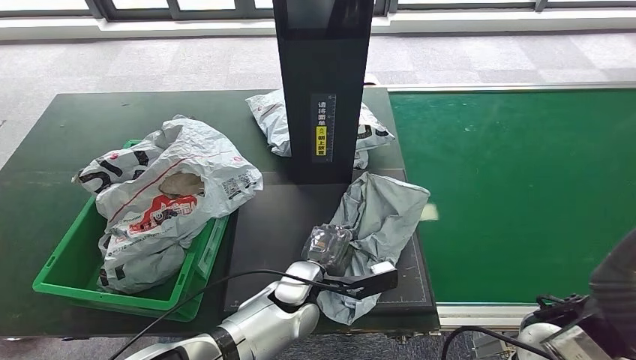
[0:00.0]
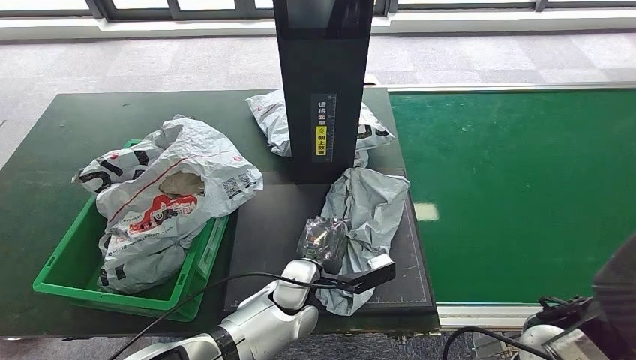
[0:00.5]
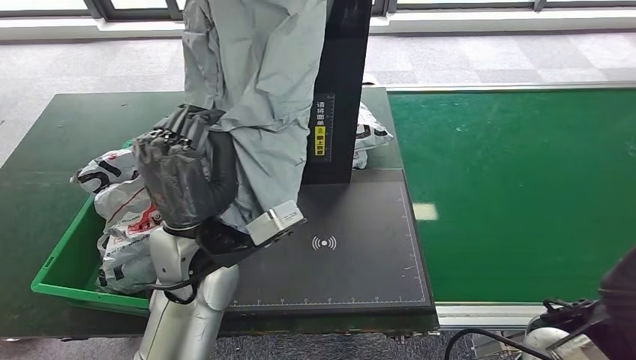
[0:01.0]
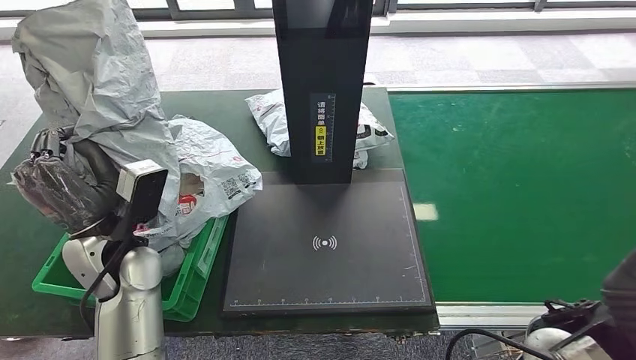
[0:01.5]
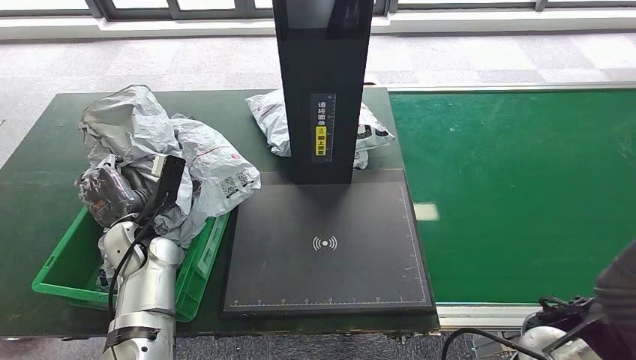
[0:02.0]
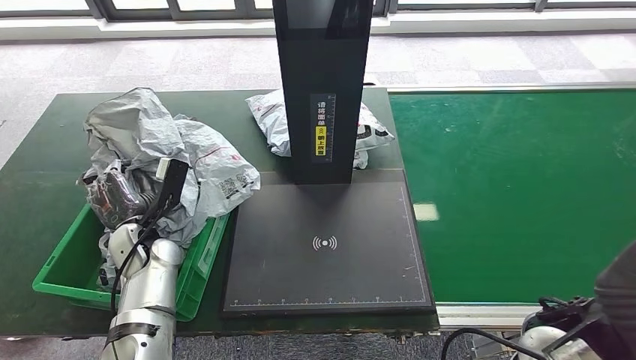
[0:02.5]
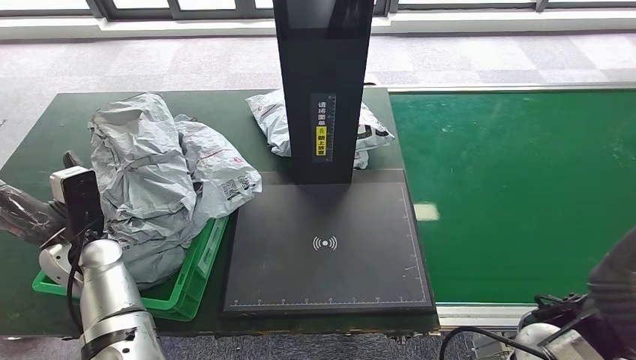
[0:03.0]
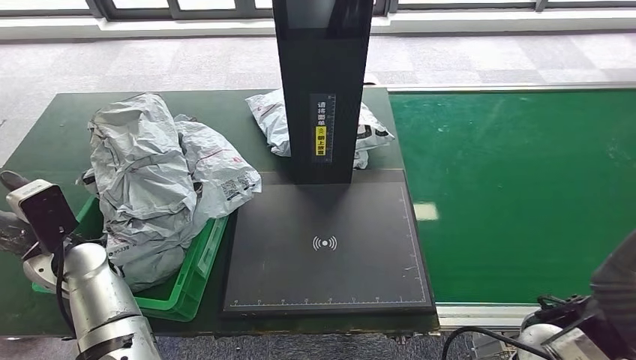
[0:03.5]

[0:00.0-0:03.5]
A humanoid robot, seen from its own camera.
Step, 0:01.5 to 0:03.5: Place the parcel into the delivery box.
0:00.0 to 0:02.0: The left hand heads to the left, covering roughly 25 cm.
0:02.0 to 0:03.5: The left hand moves to the left, roughly 5 cm.

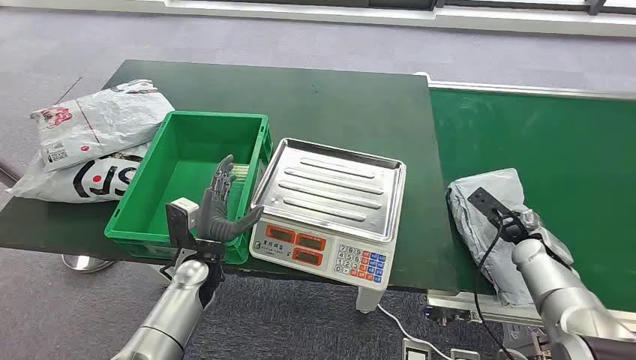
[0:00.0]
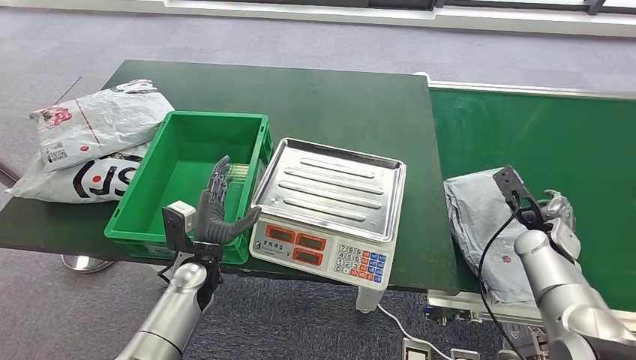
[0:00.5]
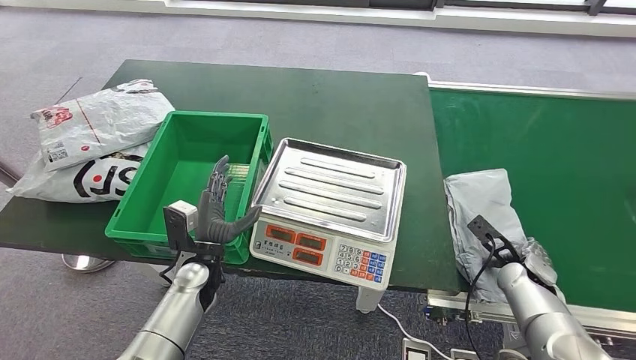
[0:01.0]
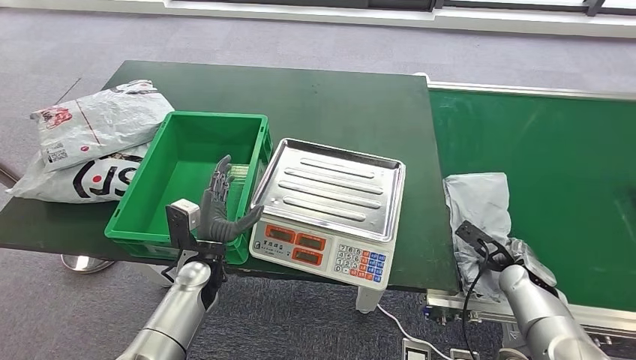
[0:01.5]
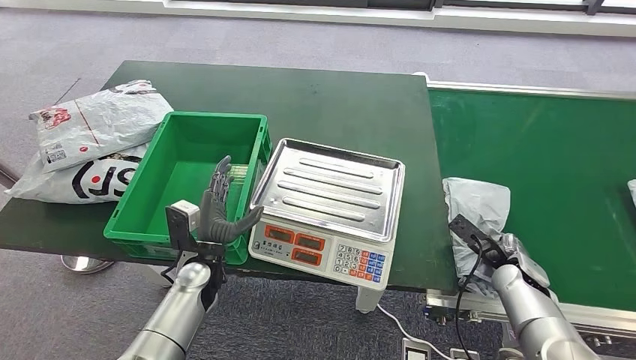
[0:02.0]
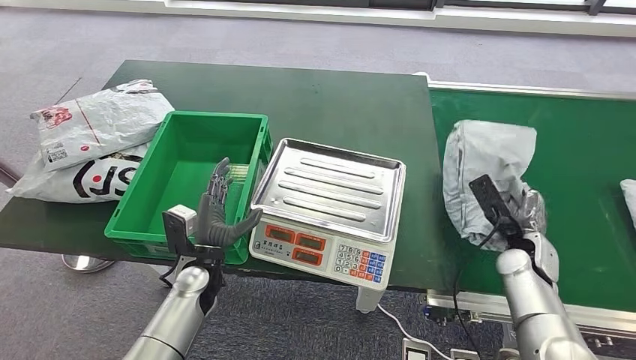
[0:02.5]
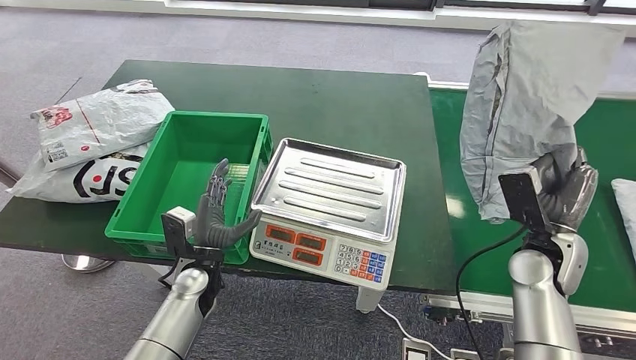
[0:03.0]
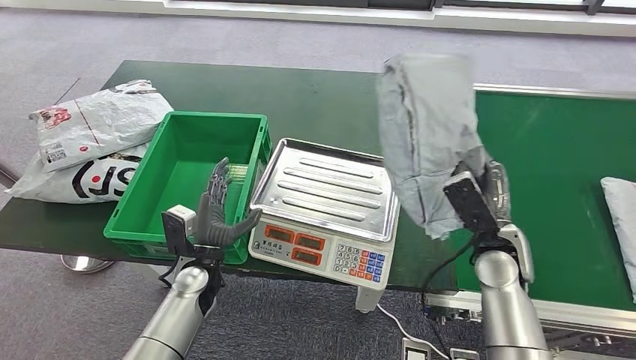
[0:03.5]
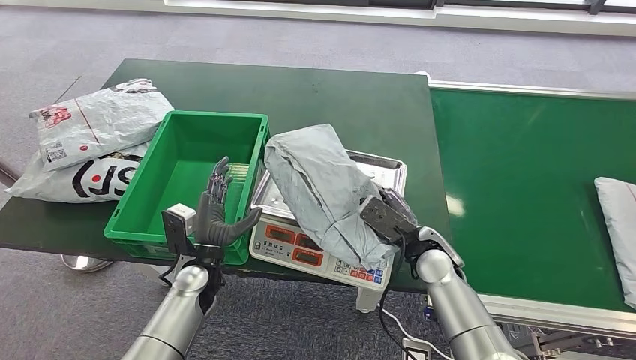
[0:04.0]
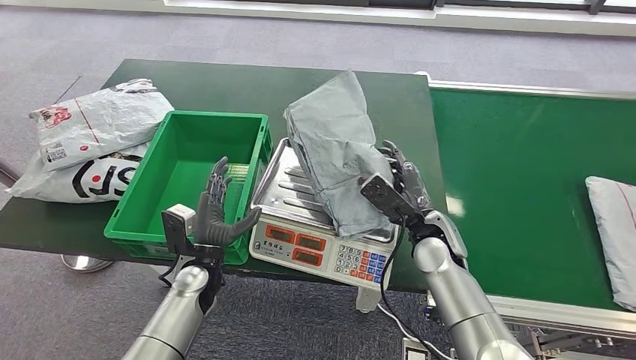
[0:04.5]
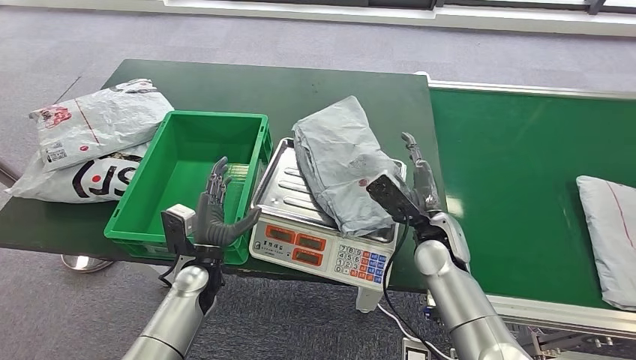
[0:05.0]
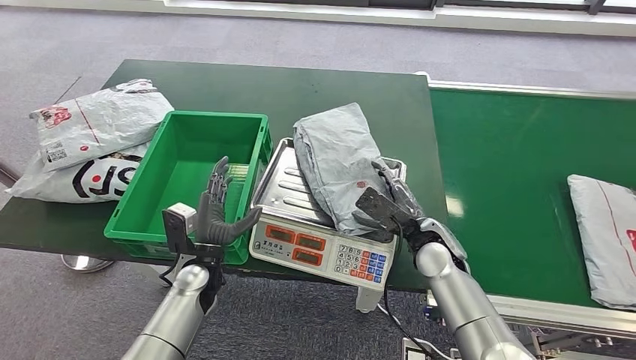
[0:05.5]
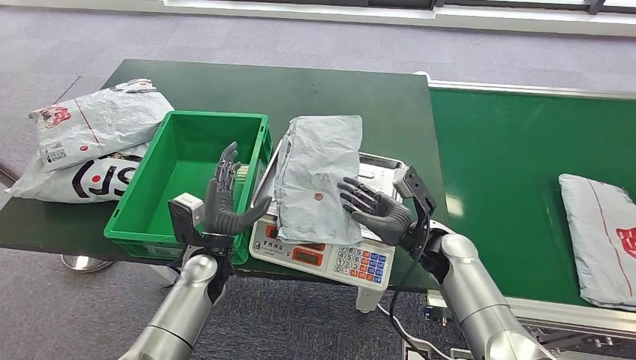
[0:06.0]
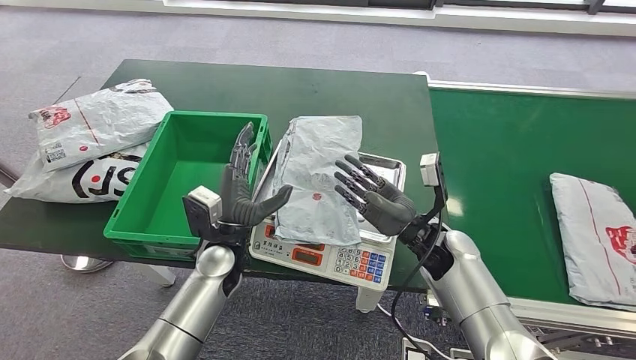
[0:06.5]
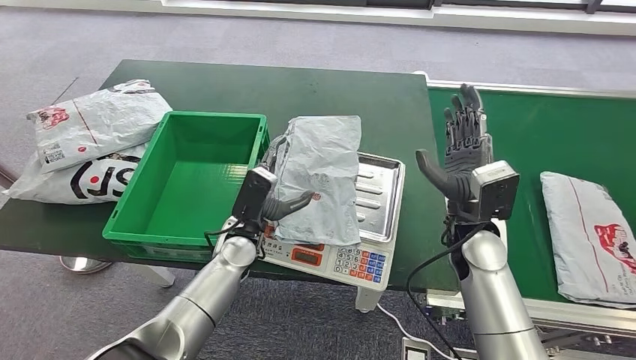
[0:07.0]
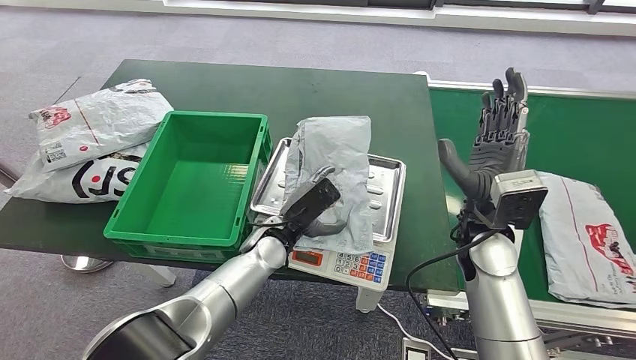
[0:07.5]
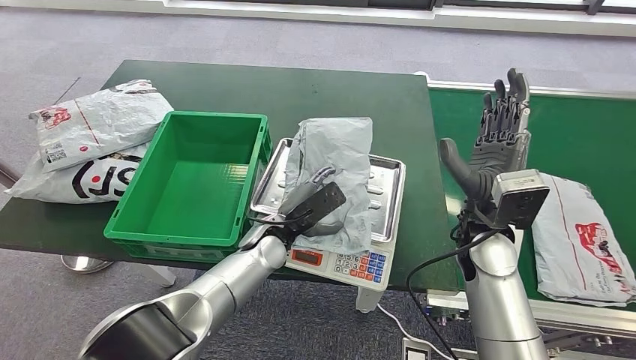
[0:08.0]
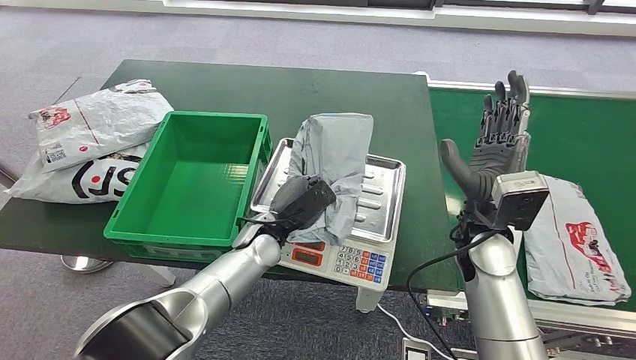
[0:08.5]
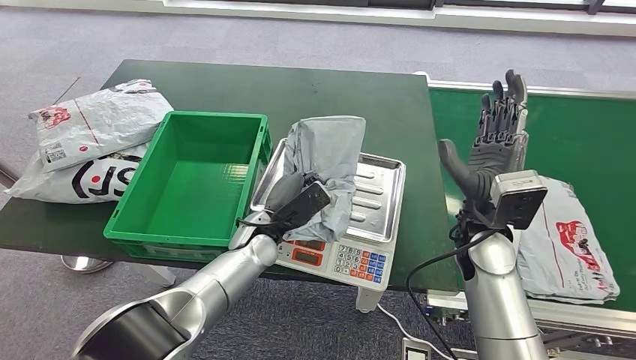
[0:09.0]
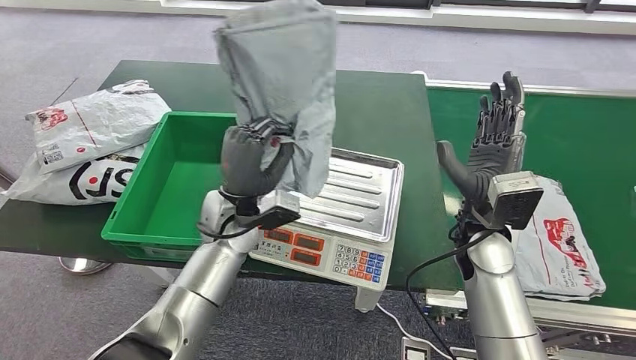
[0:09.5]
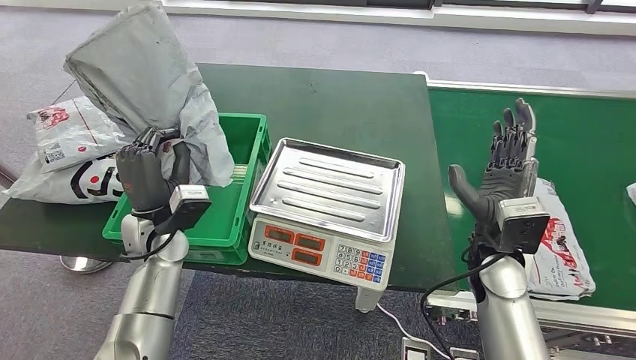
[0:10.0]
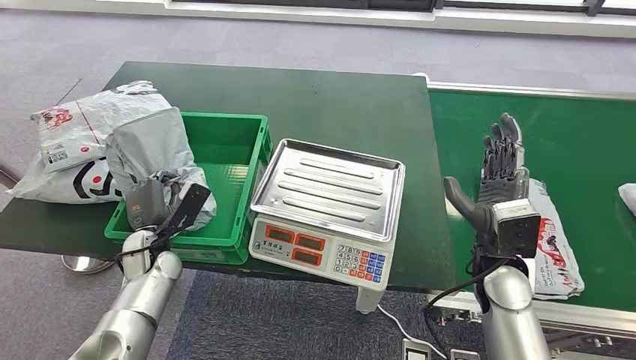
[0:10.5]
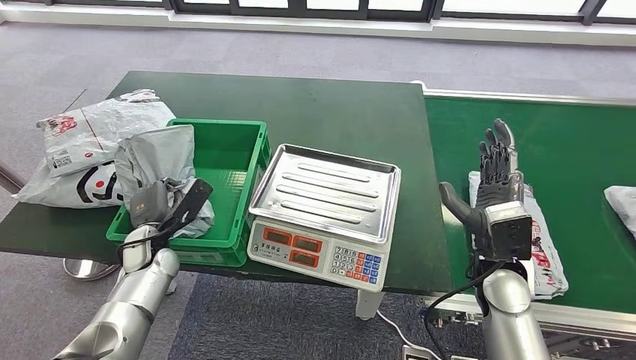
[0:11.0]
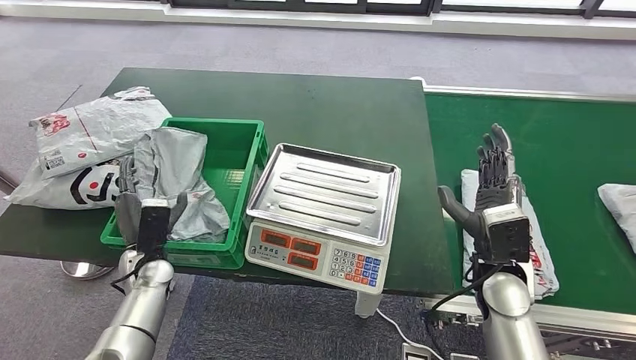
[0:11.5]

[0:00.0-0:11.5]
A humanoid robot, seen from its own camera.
Step, 0:00.0 to 0:02.5: Take the parcel off the conveyor belt.
Step, 0:03.0 to 0:05.0: Place the parcel onto the inbound machine.
Step, 0:07.0 to 0:09.5: Pick up the parcel from the inbound machine.
Step, 0:10.0 to 0:11.5: Put the parcel inside the courier box.
0:02.0 to 0:04.0: The right hand moves to the left, about 20 cm.
